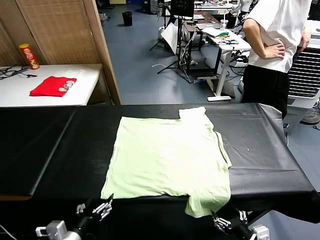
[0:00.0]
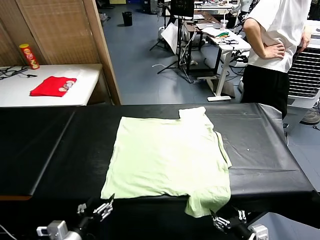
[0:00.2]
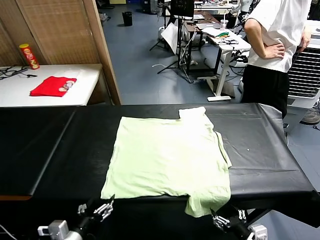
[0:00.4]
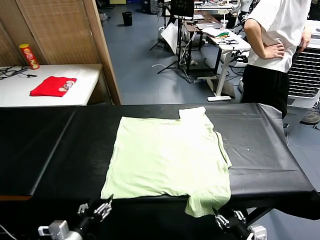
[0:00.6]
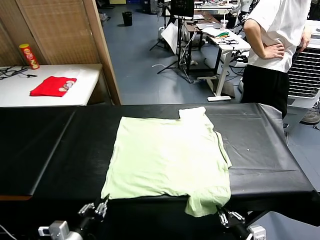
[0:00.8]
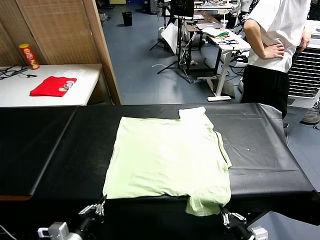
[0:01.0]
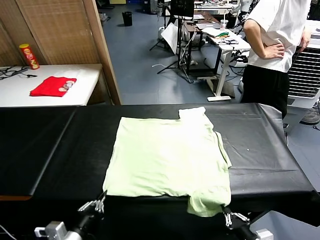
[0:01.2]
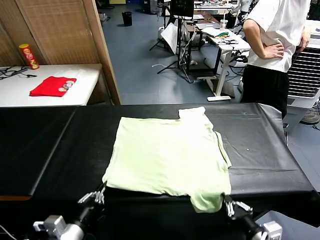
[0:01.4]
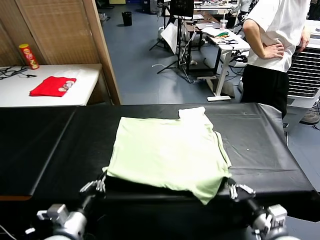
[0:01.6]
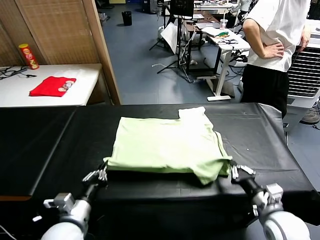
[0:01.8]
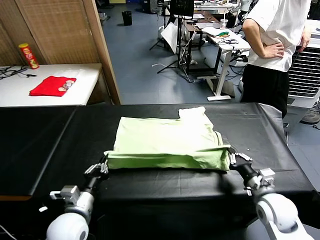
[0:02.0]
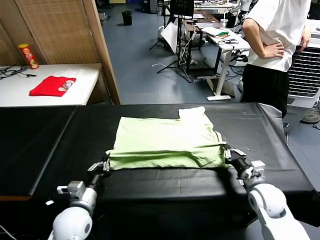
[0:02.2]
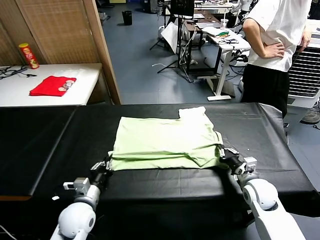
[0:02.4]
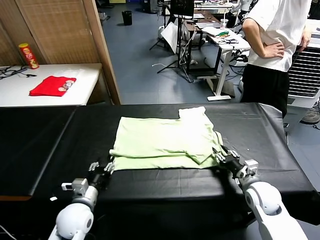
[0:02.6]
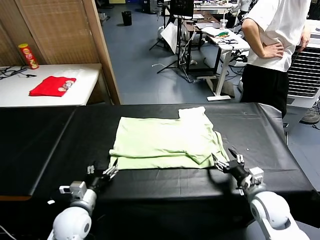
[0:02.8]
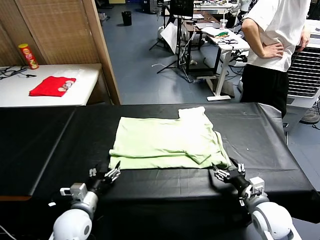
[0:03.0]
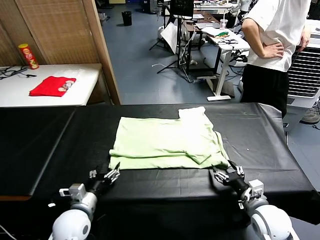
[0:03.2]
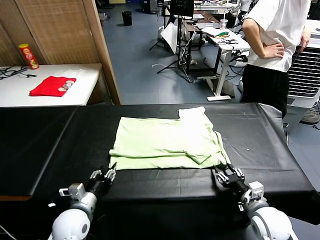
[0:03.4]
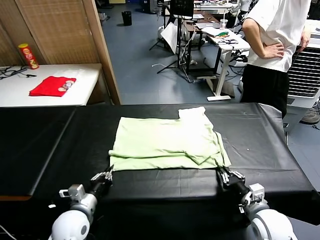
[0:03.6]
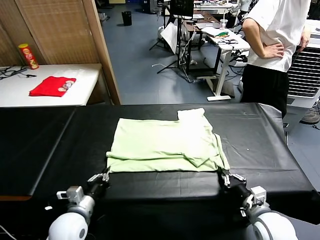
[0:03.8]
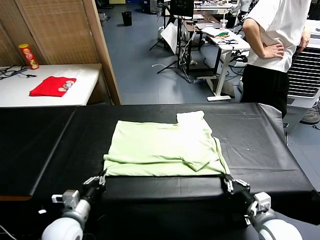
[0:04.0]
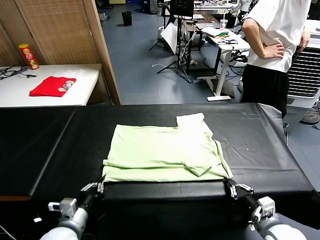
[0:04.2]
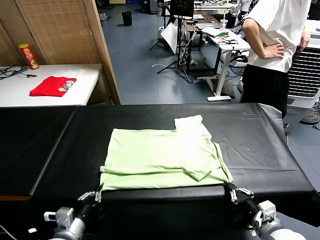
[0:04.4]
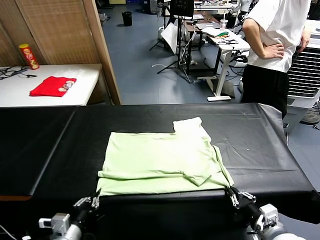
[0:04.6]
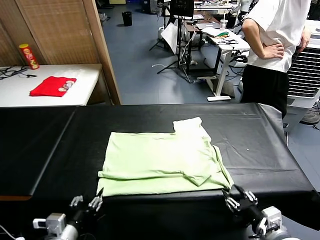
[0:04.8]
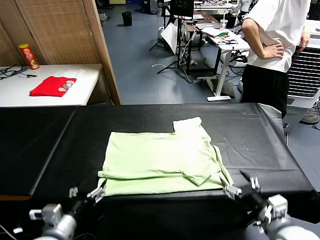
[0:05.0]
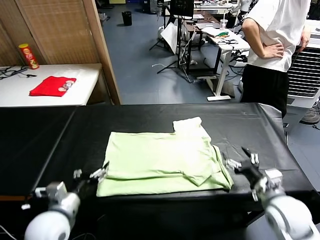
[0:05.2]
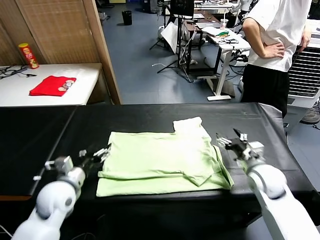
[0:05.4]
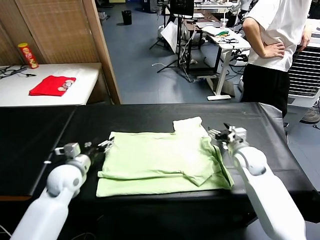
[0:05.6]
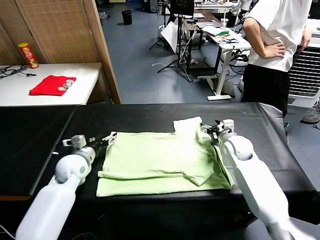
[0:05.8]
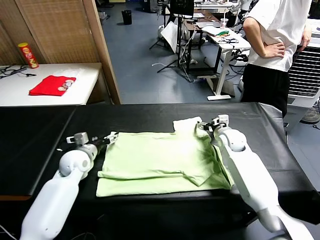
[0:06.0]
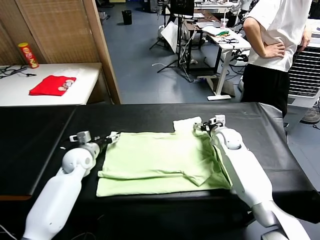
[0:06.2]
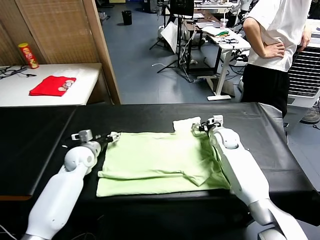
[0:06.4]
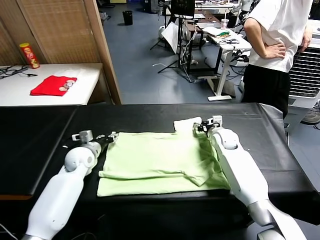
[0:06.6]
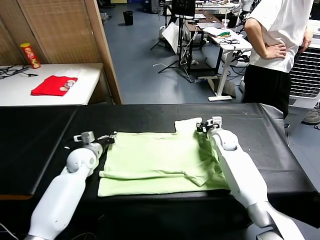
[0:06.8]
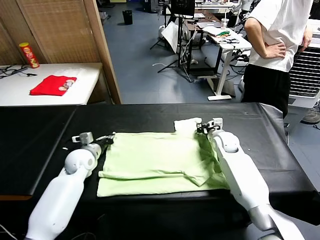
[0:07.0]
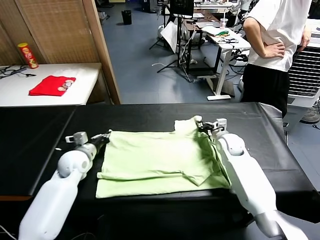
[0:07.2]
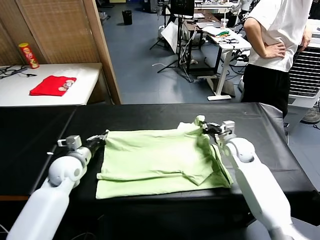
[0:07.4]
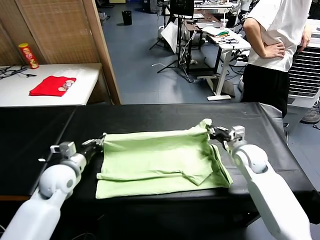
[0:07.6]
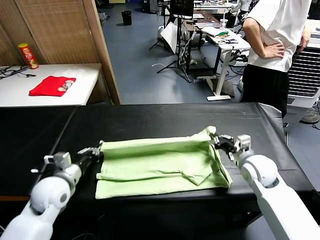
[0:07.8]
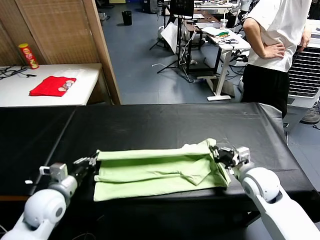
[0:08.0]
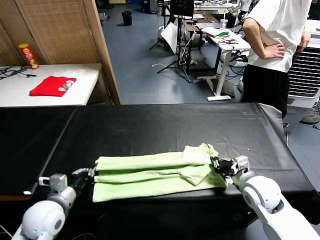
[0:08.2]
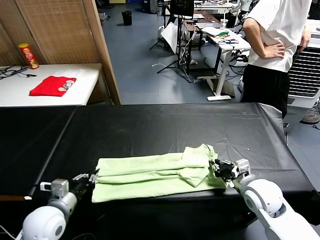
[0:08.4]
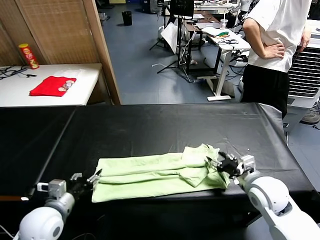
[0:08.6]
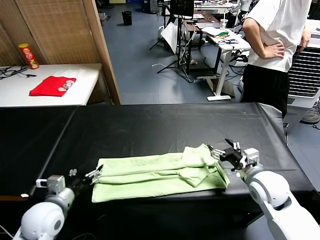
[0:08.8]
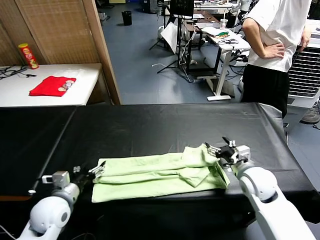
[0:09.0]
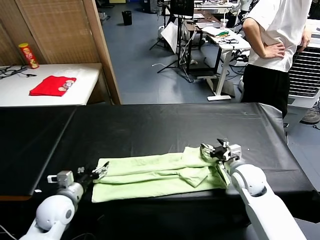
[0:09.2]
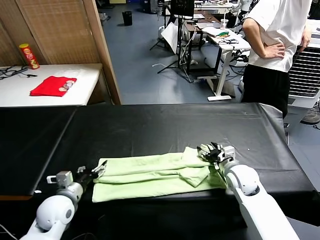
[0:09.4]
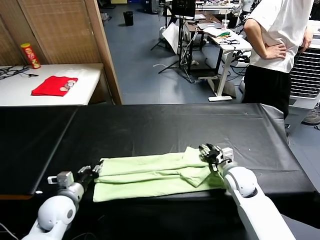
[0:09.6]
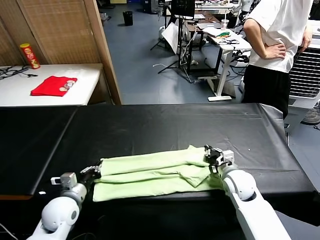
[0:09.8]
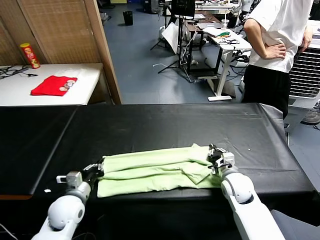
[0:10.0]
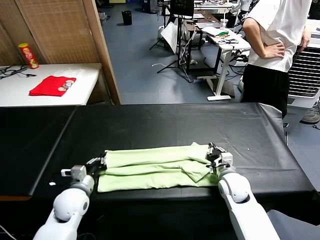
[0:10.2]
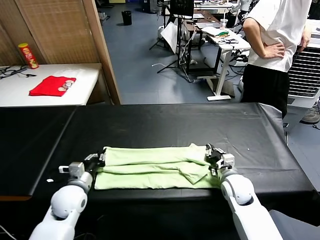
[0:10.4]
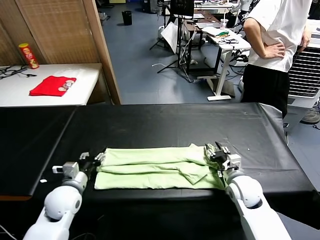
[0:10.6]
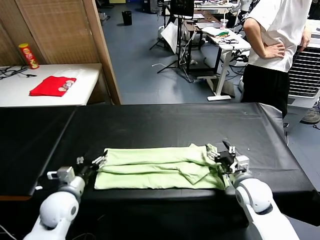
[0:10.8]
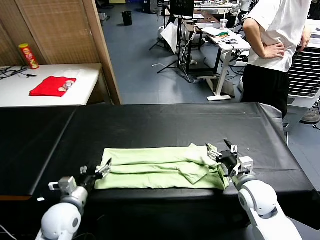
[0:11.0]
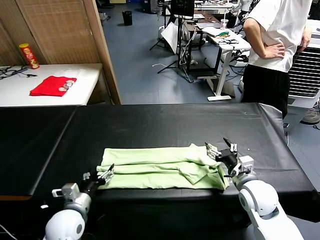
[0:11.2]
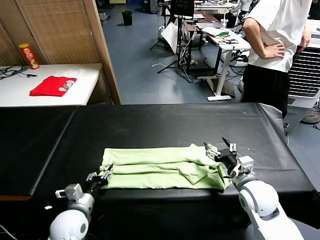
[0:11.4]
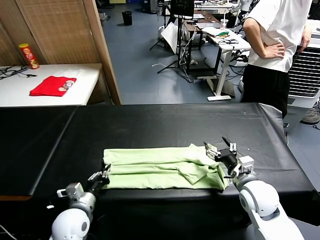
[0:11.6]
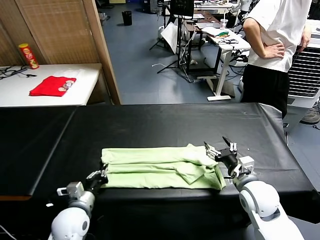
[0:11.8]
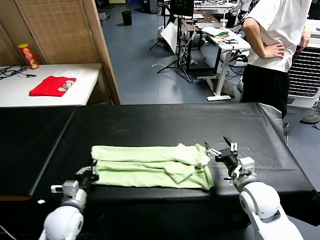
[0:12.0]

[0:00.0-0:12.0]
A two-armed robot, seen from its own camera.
Task of the whole recording: fold and organize the clothes.
Step, 0:00.0 to 0:00.8: use both grippers simultaneously to clamp the lower edge of the clothing fabric.
Step, 0:01.0 to 0:02.6: use both grippers to drag the lower edge of the fabric forward and fold it over the upper edge.
Step, 0:02.8 to 0:04.6: Drag the clothes downward with both gripper.
Step, 0:05.0 to 0:06.8: use both grippers simultaneously to clamp the upper edge of the clothing fabric.
Step, 0:07.0 to 0:08.4: use both grippers to drag the upper edge of the fabric backward and fold it over the lower edge.
Step, 0:08.6 to 0:11.6: use the left gripper to clamp the left edge of the fabric.
0:01.6 to 0:03.0: The right gripper goes forward and returns, about 10 cm each way, and opens; the left gripper shifts about 10 cm forward and downward, and opens up.
0:03.0 to 0:04.4: The two grippers go roughly 10 cm backward. The left gripper closes up. The right gripper closes.
0:04.4 to 0:06.0: The grippers both shift forward by approximately 30 cm. The right gripper opens its fingers, while the left gripper opens its fingers.
0:06.0 to 0:07.6: The left gripper heads backward, covering roughly 10 cm, and closes. Meanwhile the right gripper goes some 15 cm backward, and closes up.
0:07.6 to 0:09.0: The left gripper heads backward, covering about 10 cm, and opens up; the right gripper opens up.
0:09.0 to 0:10.4: The left gripper travels forward by approximately 5 cm, and closes up. Meanwhile the right gripper is displaced downward by roughly 5 cm, and closes.
0:10.4 to 0:12.0: The left gripper is displaced backward by about 5 cm, and opens, then closes once more. Meanwhile the right gripper heads upward and backward, covering about 10 cm, and opens.

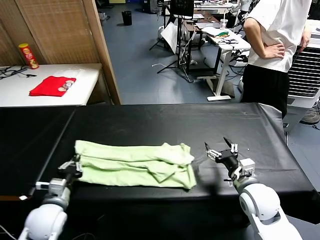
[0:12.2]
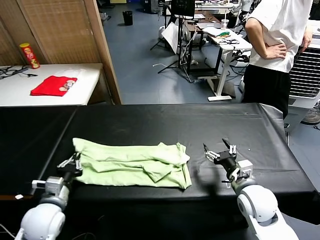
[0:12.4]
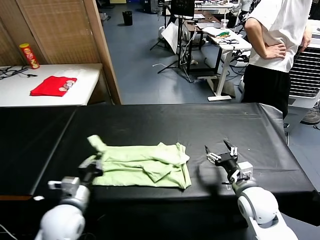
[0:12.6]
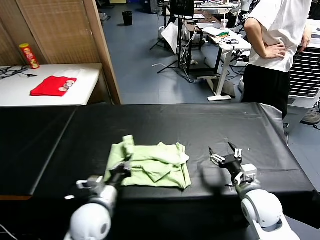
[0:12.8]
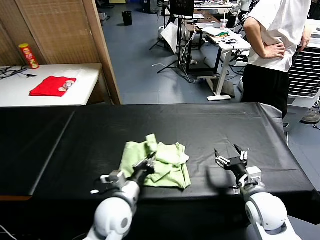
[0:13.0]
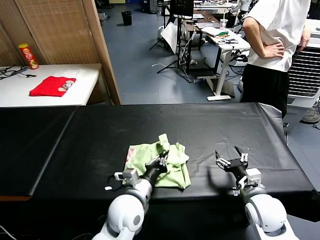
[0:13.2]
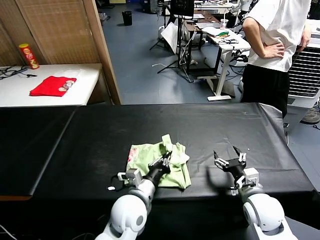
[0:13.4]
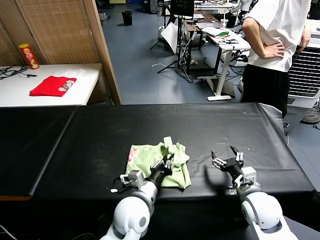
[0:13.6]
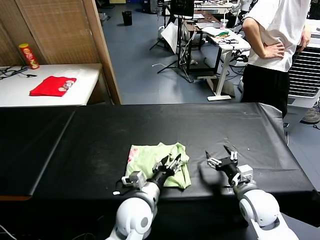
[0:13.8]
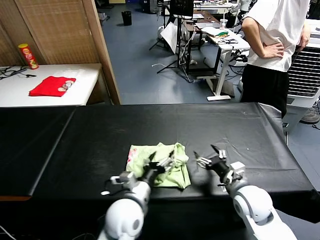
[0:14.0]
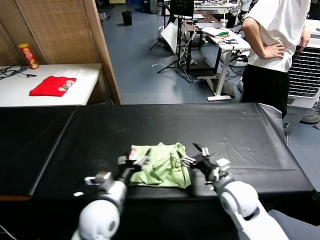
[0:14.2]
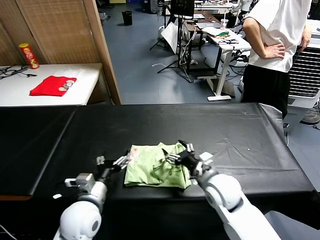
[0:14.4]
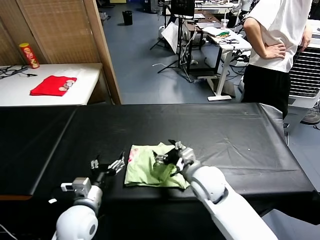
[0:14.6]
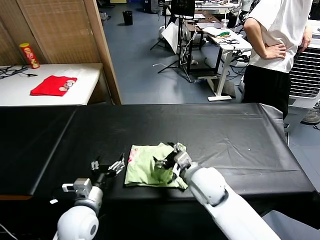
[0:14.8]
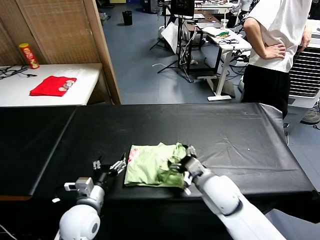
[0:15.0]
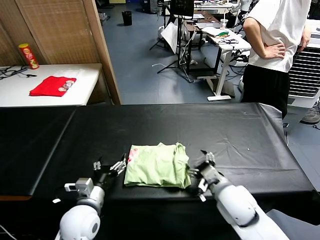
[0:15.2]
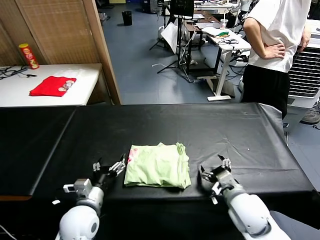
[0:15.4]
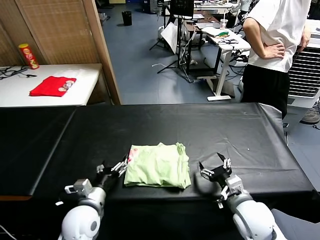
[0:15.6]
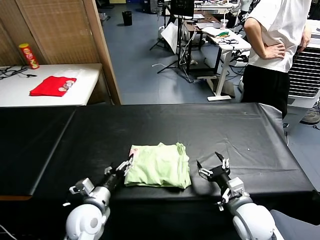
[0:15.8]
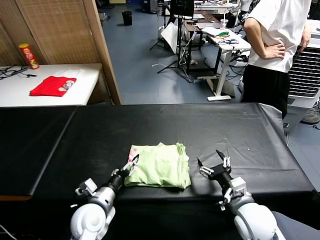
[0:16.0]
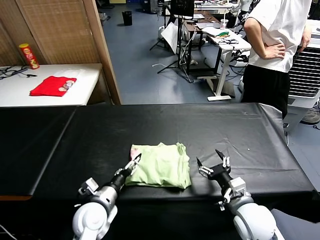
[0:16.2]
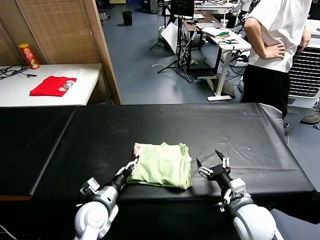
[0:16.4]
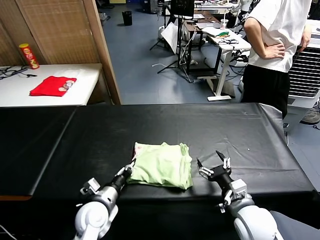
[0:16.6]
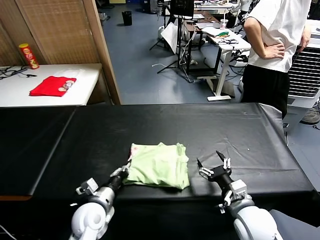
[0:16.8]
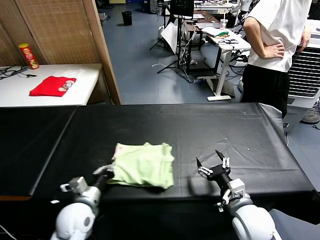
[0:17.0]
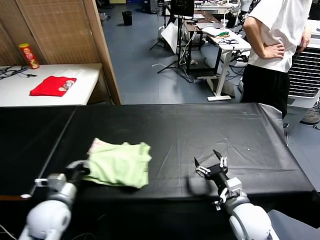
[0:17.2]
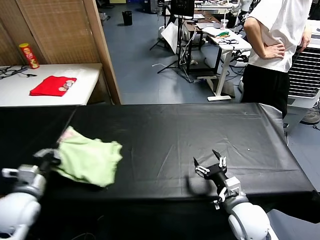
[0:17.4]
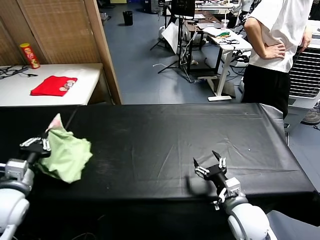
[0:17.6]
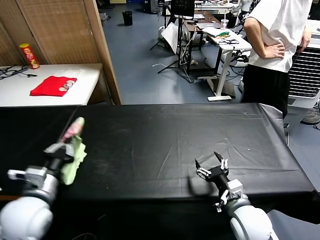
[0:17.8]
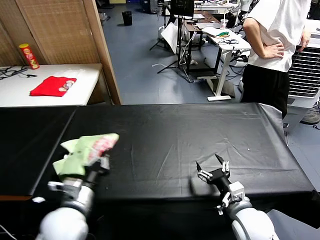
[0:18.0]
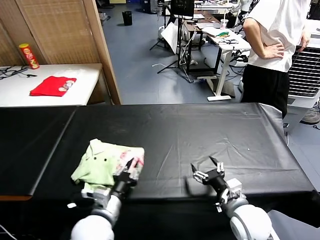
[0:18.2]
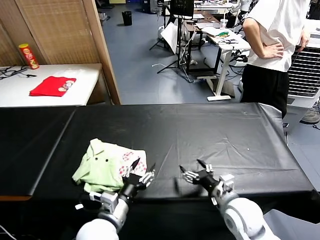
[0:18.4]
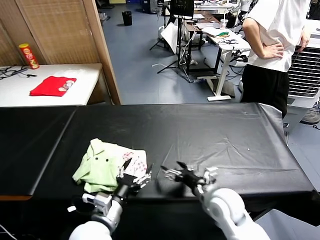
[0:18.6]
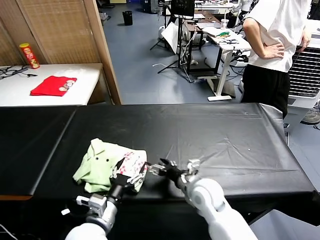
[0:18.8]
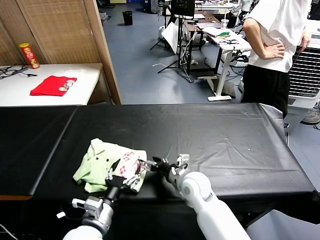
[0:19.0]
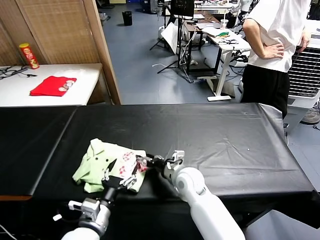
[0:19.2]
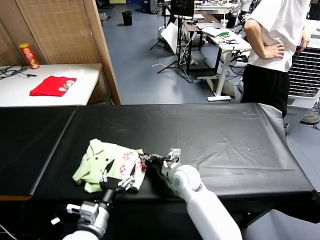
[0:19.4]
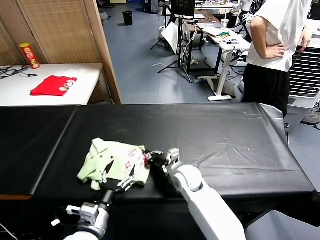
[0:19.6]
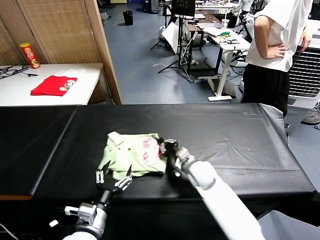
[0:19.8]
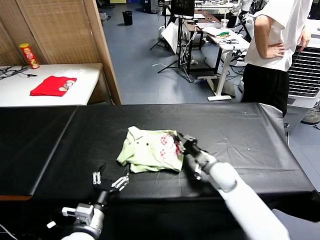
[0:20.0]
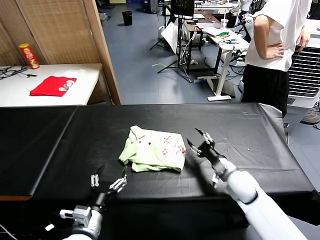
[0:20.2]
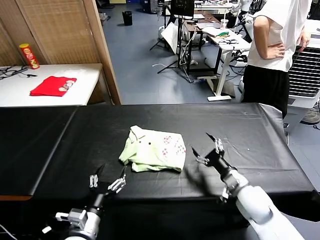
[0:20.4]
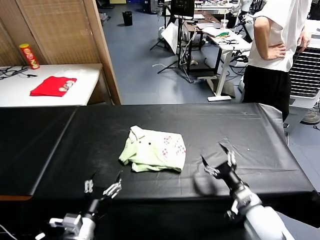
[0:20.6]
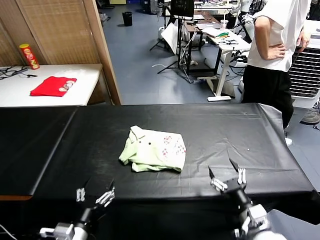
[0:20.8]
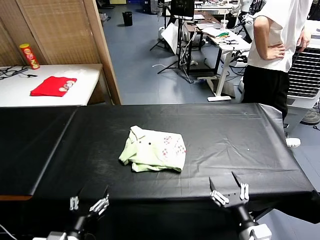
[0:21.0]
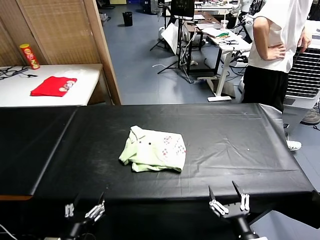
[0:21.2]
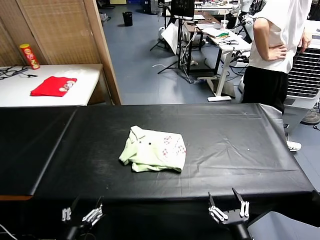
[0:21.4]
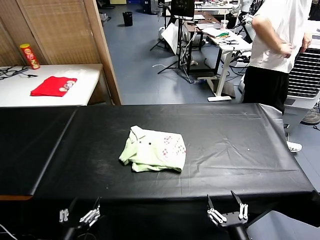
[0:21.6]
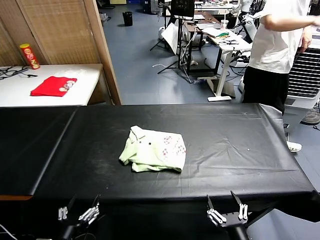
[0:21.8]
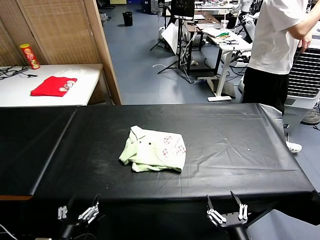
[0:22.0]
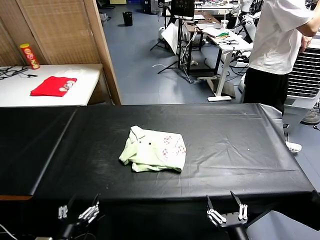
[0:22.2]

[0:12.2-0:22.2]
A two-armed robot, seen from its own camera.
Task of the whole recording: fold and organize the clothes.
Step, 0:12.2 to 0:13.8: use the left gripper to drag the left edge of the fabric to the left and folds it over the right edge.
Step, 0:14.0 to 0:18.2: Flip the folded clothes over with left gripper.
Step, 0:18.4 to 0:20.0: Drag the clothes to the center of the table.
0:12.2 to 0:13.6: The left gripper travels to the right by approximately 25 cm.
0:13.6 to 0:15.0: The two grippers go roughly 15 cm to the left. The left gripper opens its fingers.
0:15.0 to 0:16.4: The right gripper is displaced to the right and backward by about 10 cm; the left gripper moves roughly 5 cm, and closes its fingers.
0:16.4 to 0:18.0: The left gripper travels upward by some 10 cm, travels to the left and back again, approximately 15 cm each way, and closes.
0:18.0 to 0:19.4: The left gripper heads to the right, covering some 5 cm, and opens. The right gripper shifts roughly 25 cm forward and to the left, and closes.
0:19.4 to 0:20.8: The right gripper heads backward and to the right, covering roughly 30 cm, and opens its fingers; the left gripper ends up roughly 5 cm from where it was.
0:20.8 to 0:22.2: The left gripper changes place by roughly 5 cm, while the right gripper moves backward, roughly 10 cm.
